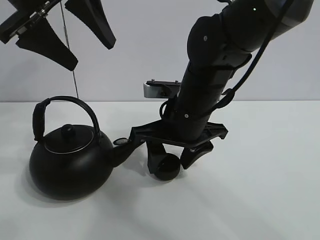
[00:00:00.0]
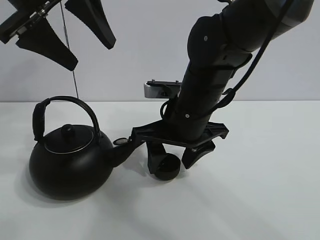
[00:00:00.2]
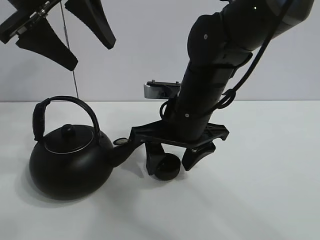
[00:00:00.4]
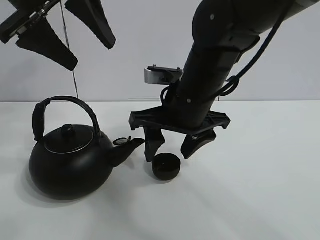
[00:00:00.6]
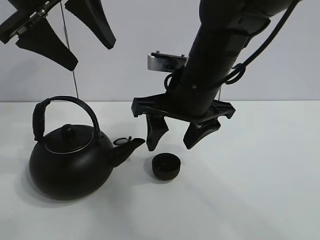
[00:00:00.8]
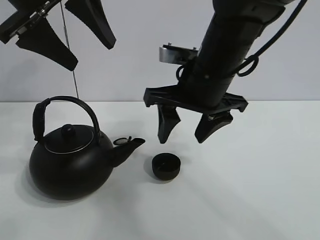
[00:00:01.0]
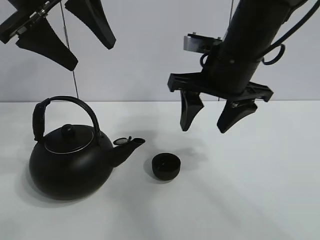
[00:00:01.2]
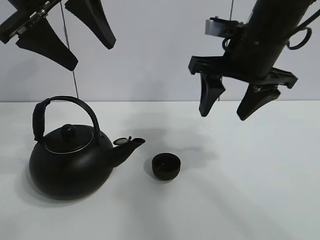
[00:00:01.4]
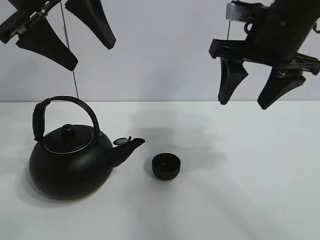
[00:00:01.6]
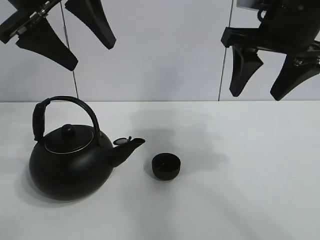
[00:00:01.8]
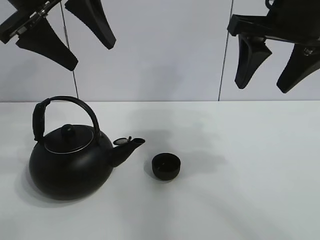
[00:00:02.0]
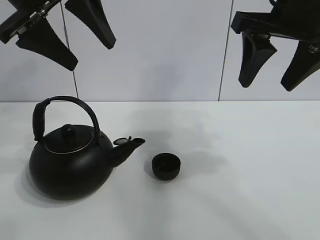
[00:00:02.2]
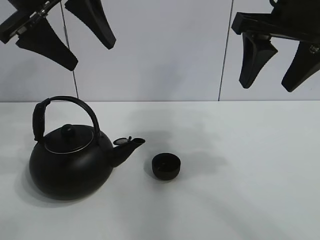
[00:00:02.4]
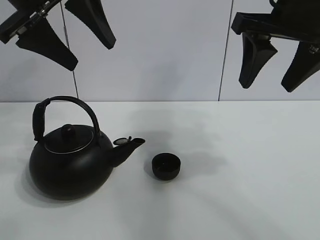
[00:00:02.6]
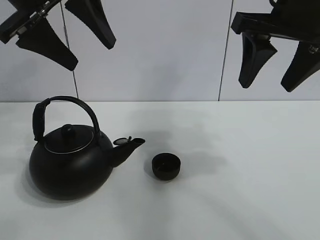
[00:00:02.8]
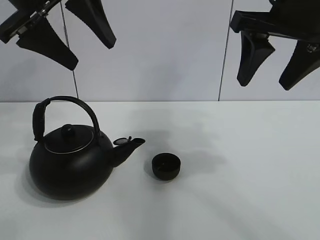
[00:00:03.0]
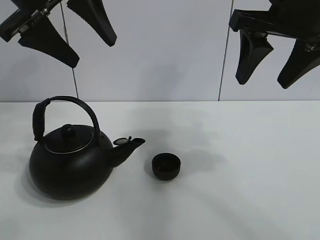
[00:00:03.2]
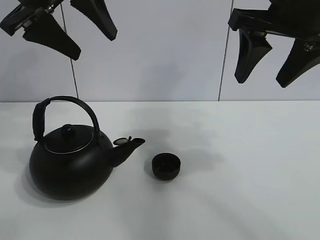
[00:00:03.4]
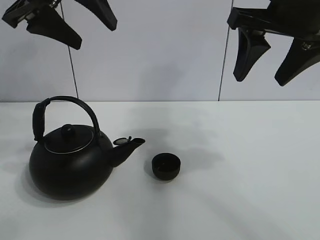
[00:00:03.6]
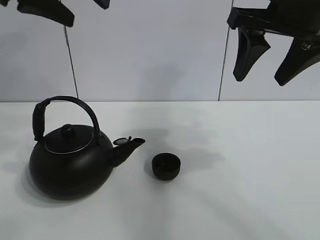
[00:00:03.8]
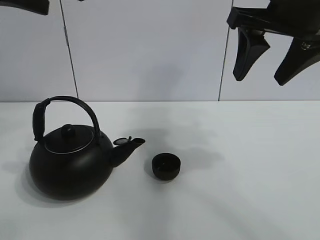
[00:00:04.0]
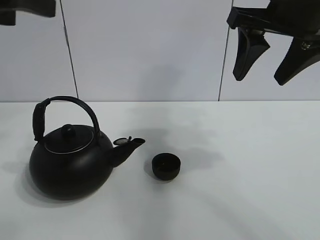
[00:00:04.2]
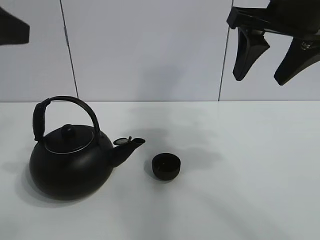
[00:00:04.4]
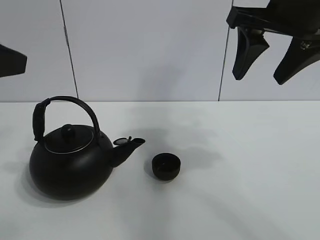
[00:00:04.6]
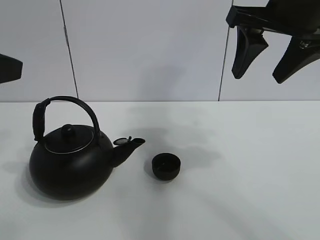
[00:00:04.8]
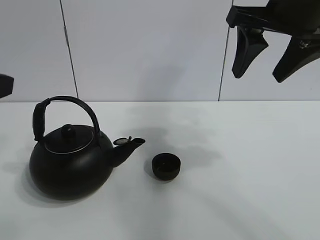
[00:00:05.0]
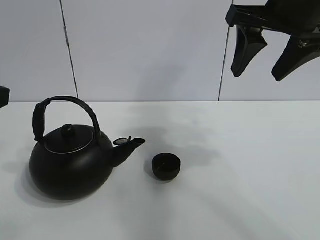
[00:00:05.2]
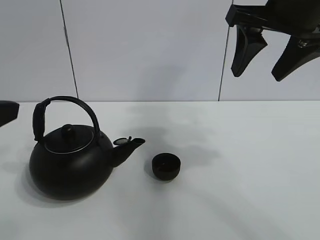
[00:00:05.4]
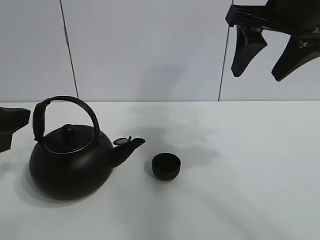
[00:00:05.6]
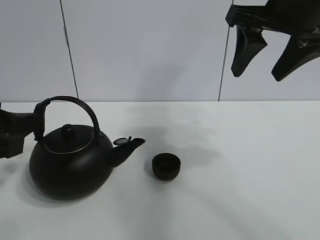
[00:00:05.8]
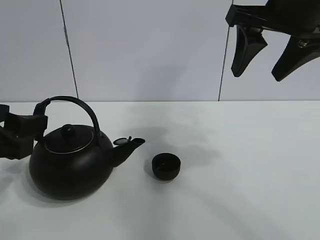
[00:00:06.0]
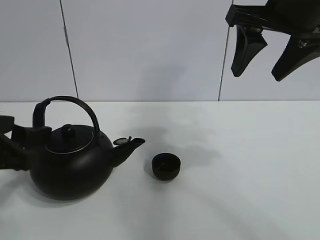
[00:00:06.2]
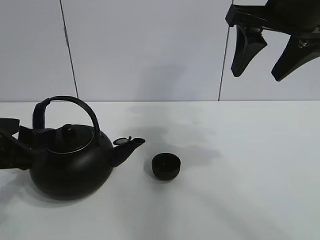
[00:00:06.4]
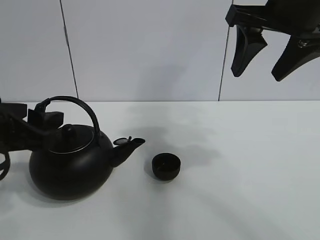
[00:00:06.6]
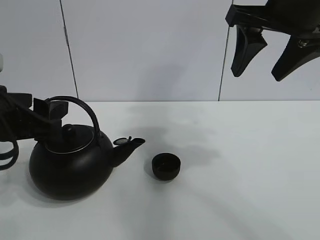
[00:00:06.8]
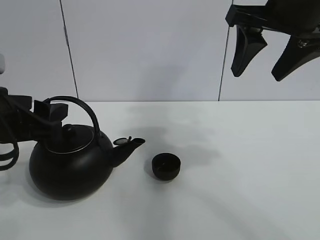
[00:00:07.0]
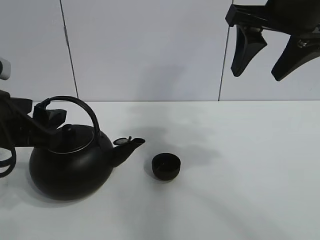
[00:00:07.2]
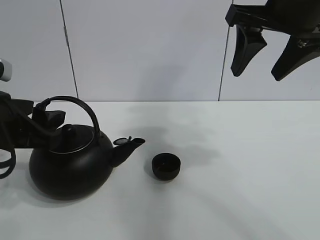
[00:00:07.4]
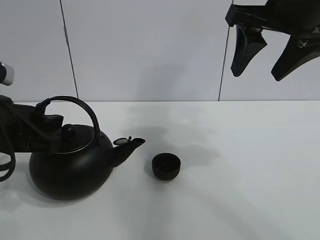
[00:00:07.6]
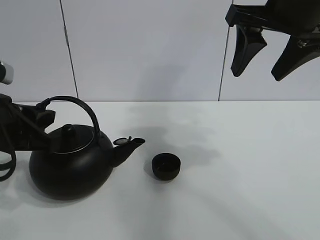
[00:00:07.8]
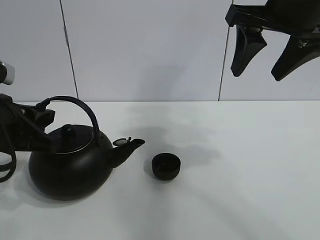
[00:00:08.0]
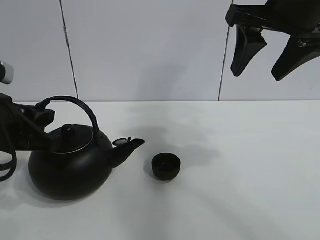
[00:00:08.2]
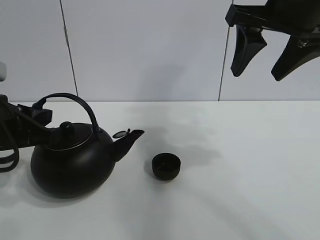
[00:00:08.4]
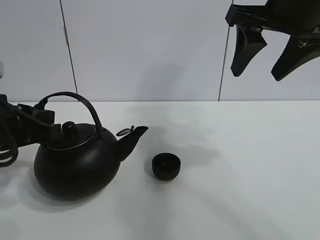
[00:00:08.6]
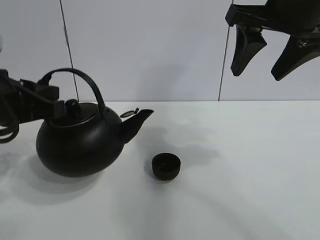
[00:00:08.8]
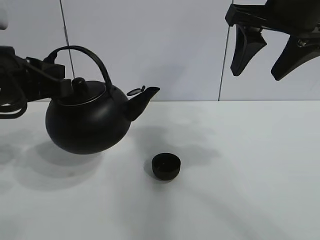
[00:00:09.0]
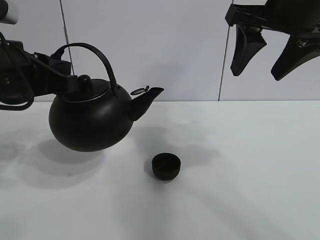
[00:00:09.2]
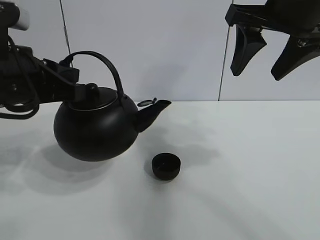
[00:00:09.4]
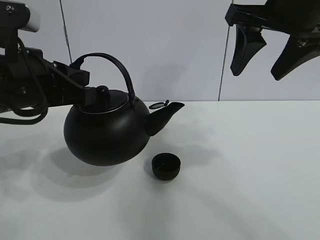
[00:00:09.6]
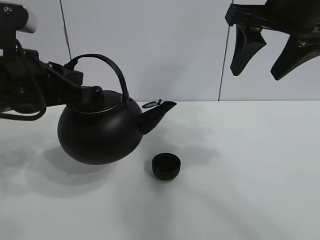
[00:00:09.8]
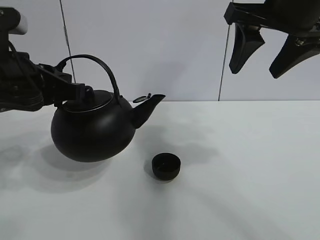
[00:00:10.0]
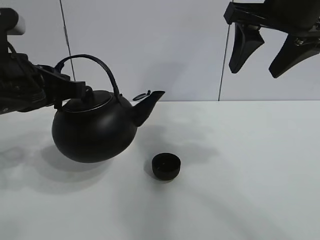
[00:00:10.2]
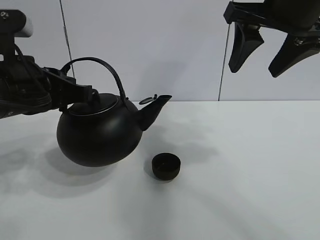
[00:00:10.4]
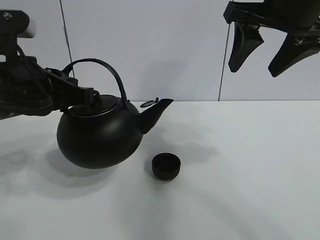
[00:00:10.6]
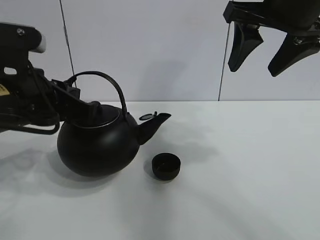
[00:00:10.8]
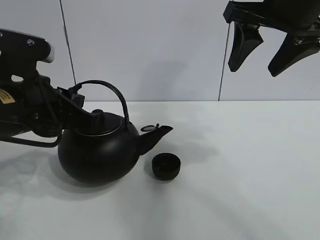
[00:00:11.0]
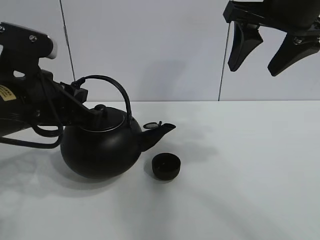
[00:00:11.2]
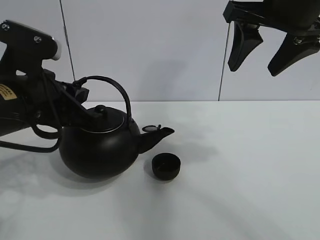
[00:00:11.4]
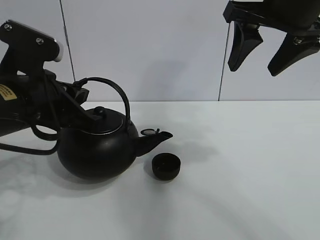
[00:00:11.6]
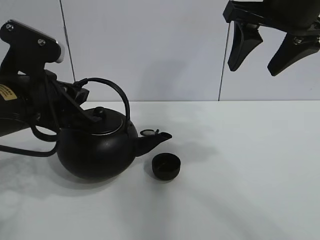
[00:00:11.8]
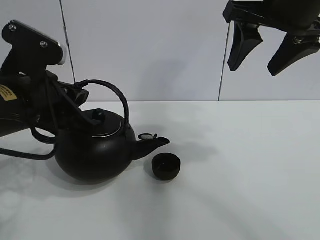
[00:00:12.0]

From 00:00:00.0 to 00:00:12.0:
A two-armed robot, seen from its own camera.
Task of the whole recording: pour tea into the teacup.
Step, from 00:00:00.8 to 00:00:08.6: Pick up the teapot with the left gripper.
From 00:00:00.0 to 00:00:01.6: The right gripper goes approximately 15 cm upward and to the right.
From 00:00:01.6 to 00:00:03.0: The right gripper shifts by roughly 5 cm.
From 00:00:03.0 to 00:00:04.4: The left gripper is displaced backward and to the left by some 15 cm.
From 00:00:04.4 to 00:00:06.0: The left gripper moves downward, approximately 15 cm.
From 00:00:06.0 to 00:00:07.6: The grippers make only small movements.
From 00:00:07.6 to 00:00:09.0: The left gripper moves upward, approximately 5 cm, and closes its fingers.
From 00:00:09.0 to 00:00:10.4: The grippers stay close to where they were, moving slightly.

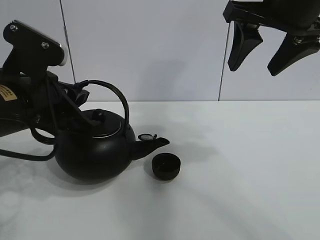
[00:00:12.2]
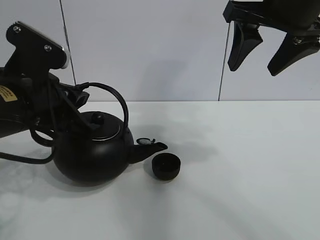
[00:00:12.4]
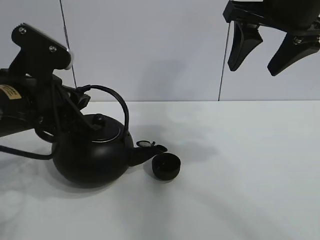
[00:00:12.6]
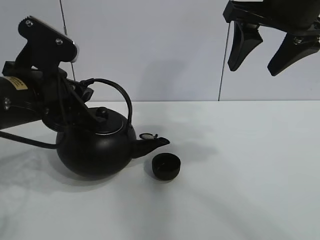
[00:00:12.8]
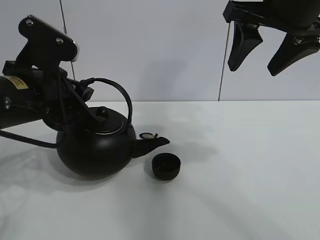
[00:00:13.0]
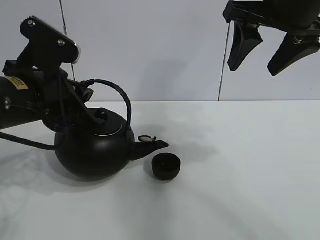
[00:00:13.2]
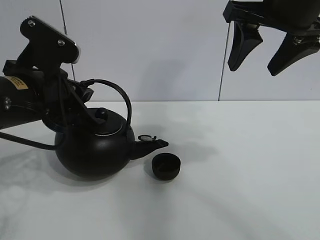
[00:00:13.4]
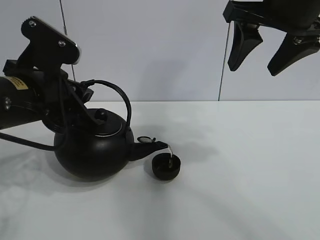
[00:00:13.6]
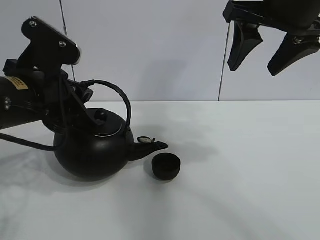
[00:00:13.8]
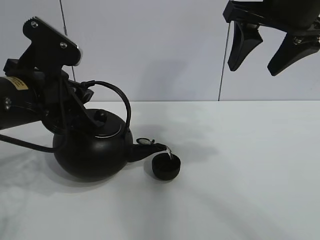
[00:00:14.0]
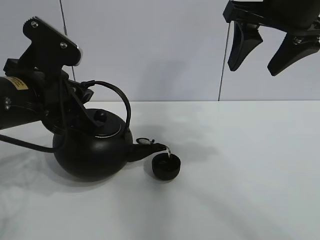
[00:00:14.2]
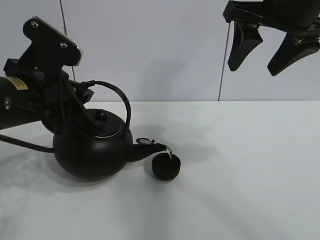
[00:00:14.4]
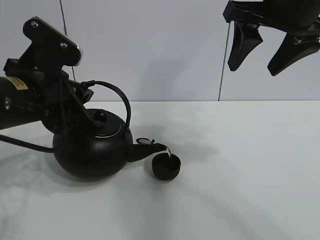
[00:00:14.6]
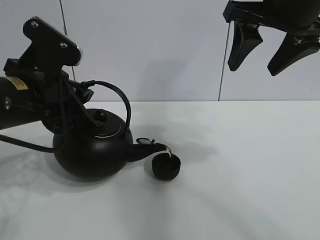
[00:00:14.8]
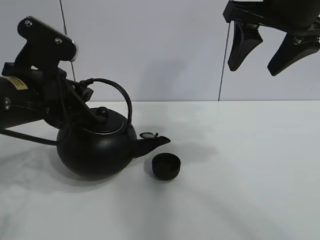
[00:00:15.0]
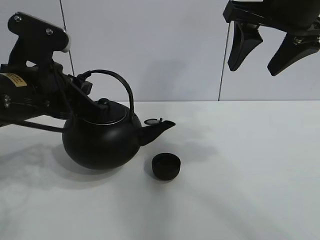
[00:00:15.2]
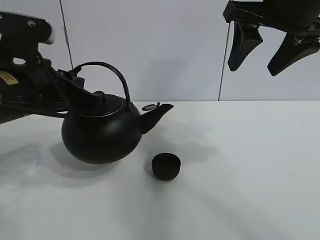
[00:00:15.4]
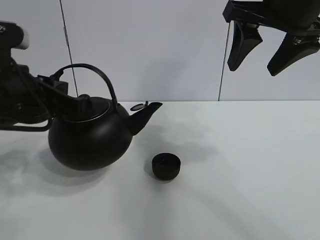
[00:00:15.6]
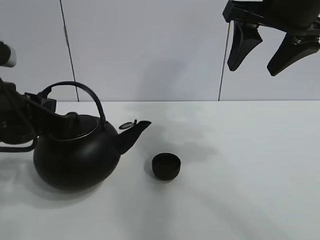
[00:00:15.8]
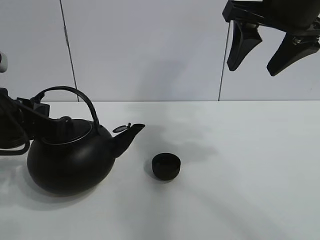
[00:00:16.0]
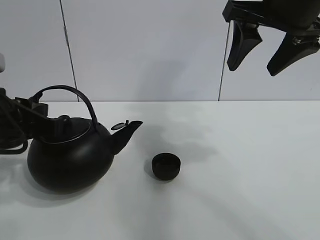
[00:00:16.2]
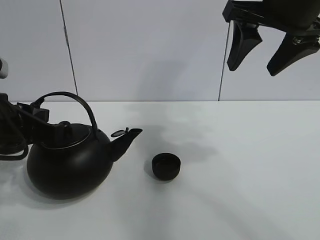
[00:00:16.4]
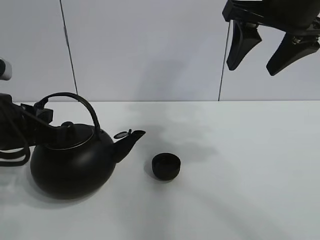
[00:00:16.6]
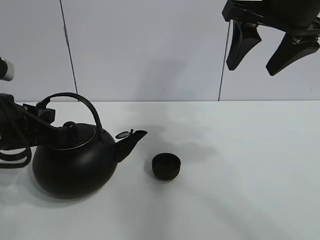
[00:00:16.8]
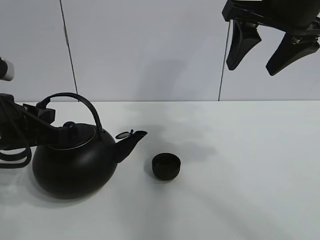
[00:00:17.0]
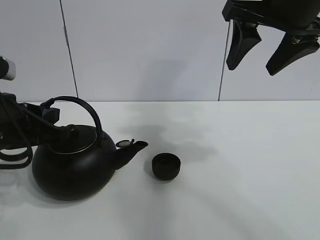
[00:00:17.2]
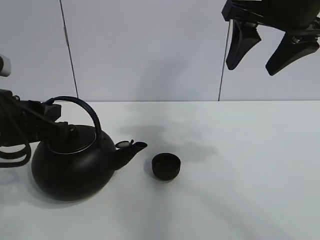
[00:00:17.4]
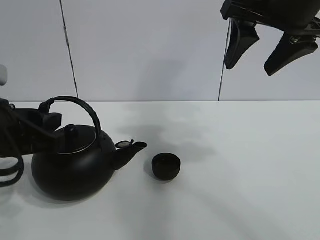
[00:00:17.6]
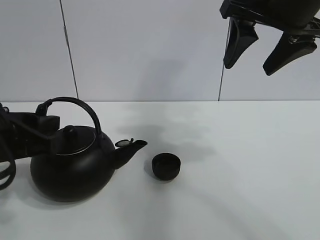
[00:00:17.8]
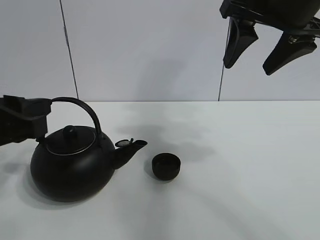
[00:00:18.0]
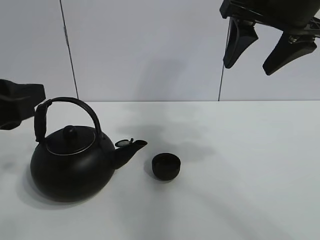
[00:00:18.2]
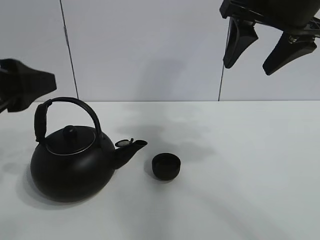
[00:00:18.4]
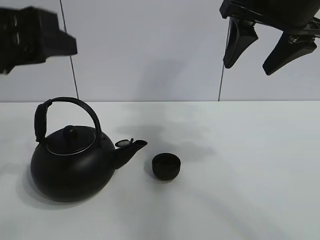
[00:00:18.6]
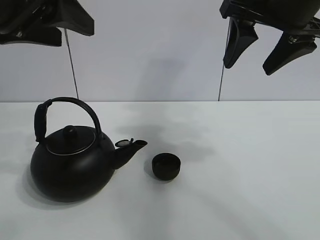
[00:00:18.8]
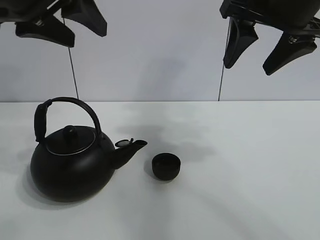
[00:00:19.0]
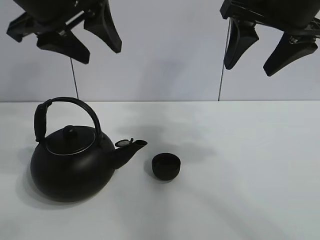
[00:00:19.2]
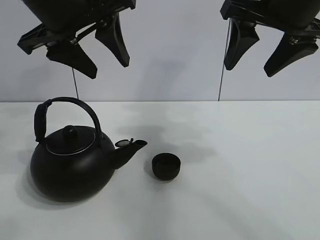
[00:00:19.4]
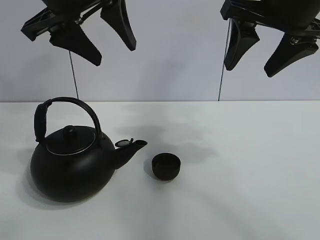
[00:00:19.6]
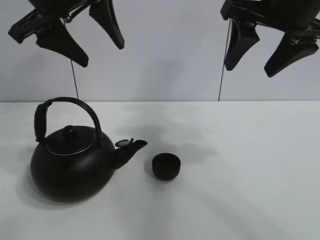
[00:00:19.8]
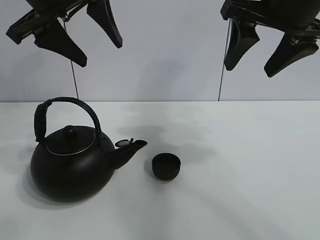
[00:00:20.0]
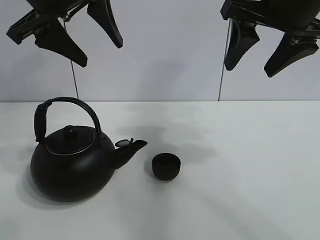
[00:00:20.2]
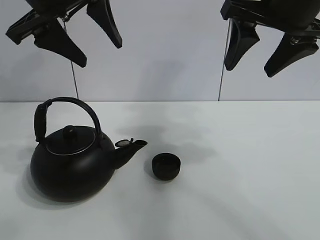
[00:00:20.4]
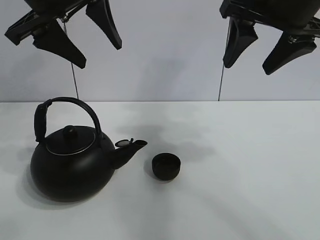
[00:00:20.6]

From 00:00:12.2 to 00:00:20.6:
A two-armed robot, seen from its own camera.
Task of the whole recording: pour tea into the teacup.
Step, from 00:00:12.2 to 00:00:15.0: Pour tea into the teacup with the left gripper.
From 00:00:12.2 to 00:00:13.6: The grippers move only a little.
From 00:00:13.6 to 00:00:15.0: Both grippers stay about where they are.
From 00:00:15.0 to 00:00:16.4: The left gripper is displaced to the left by some 5 cm.
From 00:00:16.4 to 00:00:17.8: The left gripper opens.
From 00:00:17.8 to 00:00:19.2: The left gripper moves upward, forward and to the right, about 20 cm.
From 00:00:19.2 to 00:00:20.6: The grippers move only a little.
